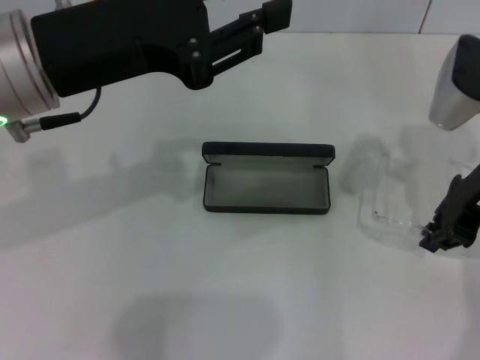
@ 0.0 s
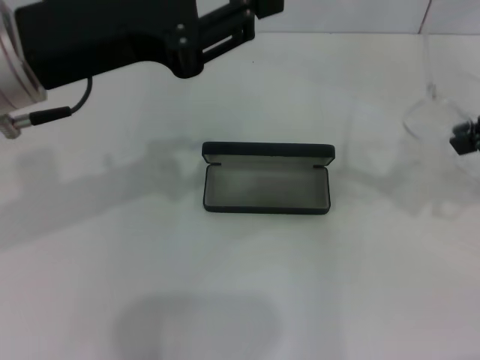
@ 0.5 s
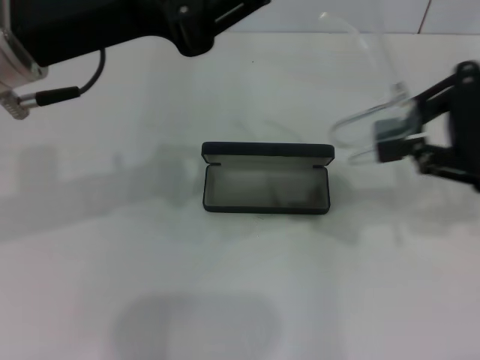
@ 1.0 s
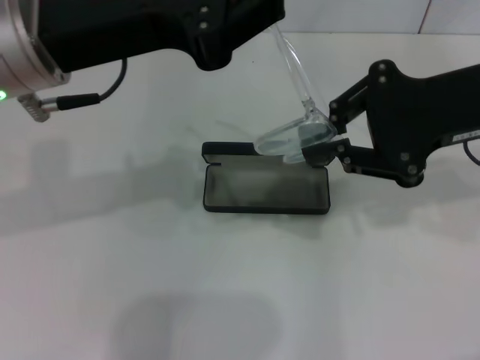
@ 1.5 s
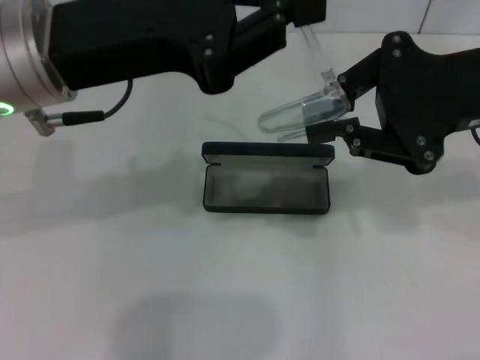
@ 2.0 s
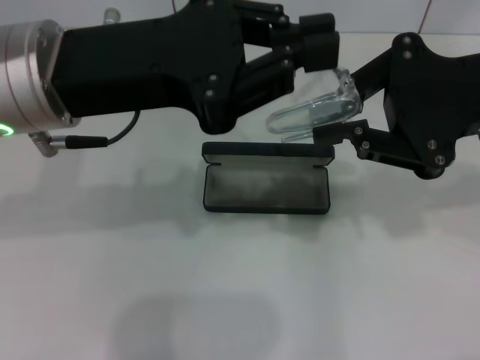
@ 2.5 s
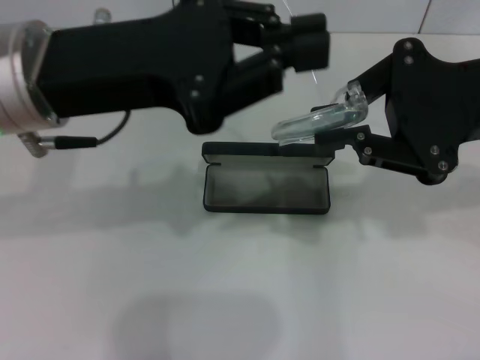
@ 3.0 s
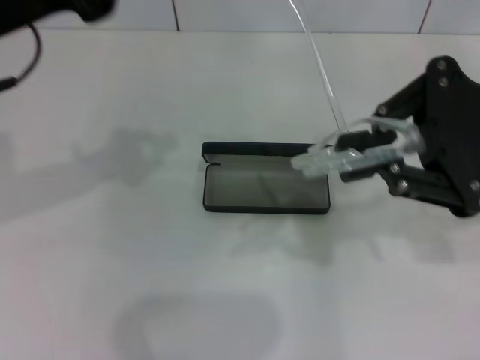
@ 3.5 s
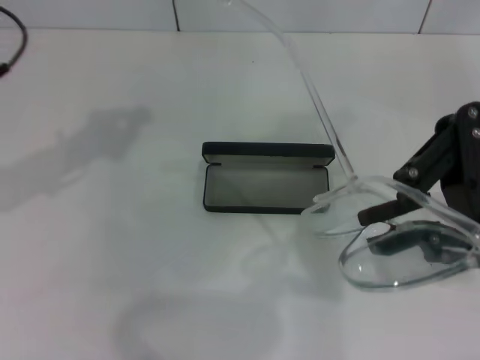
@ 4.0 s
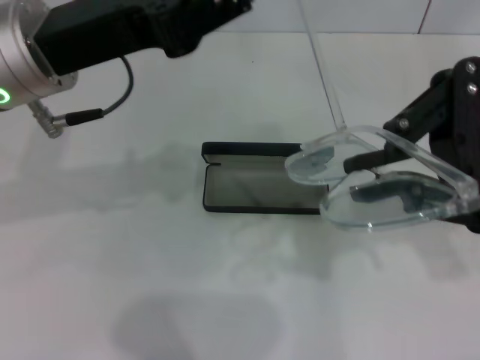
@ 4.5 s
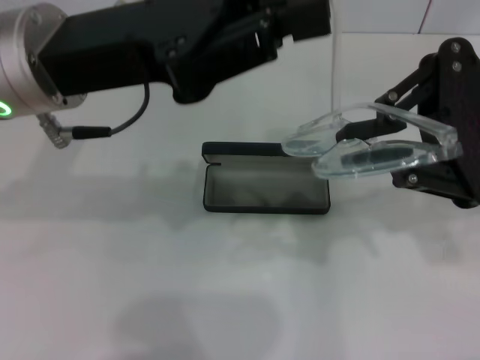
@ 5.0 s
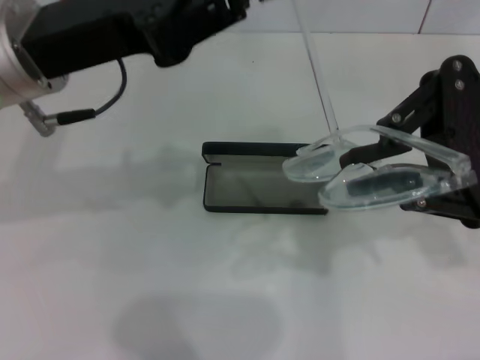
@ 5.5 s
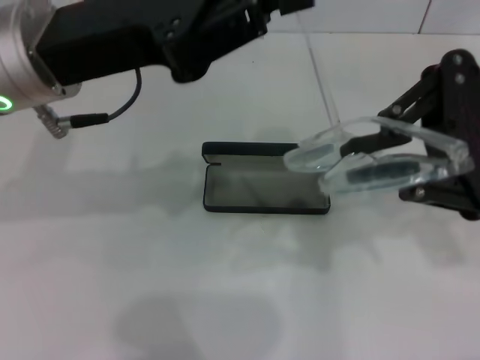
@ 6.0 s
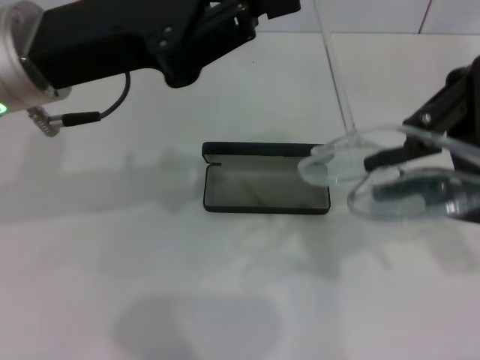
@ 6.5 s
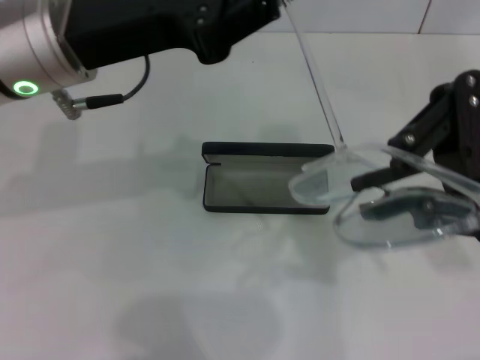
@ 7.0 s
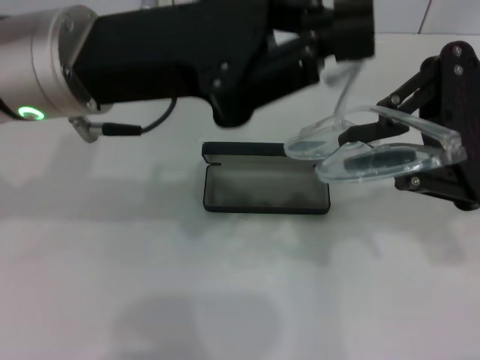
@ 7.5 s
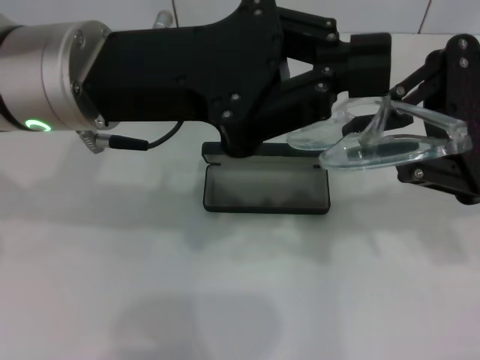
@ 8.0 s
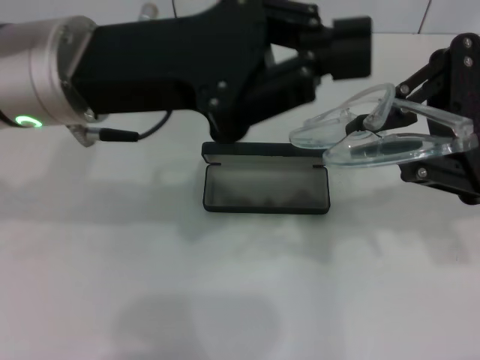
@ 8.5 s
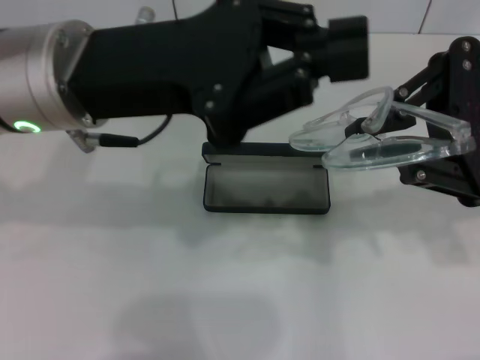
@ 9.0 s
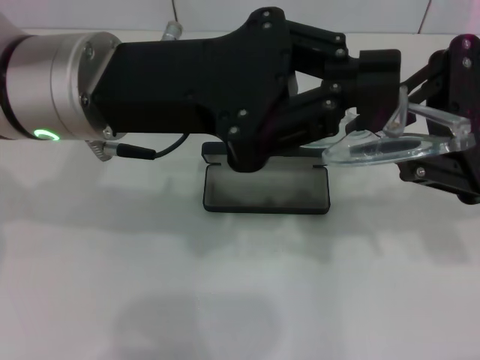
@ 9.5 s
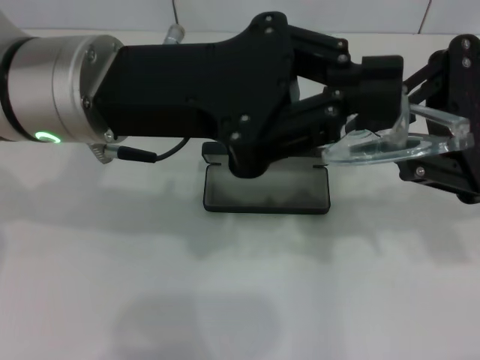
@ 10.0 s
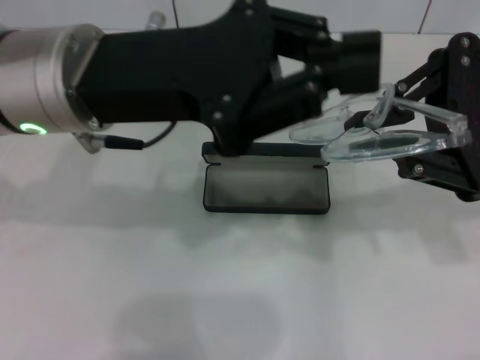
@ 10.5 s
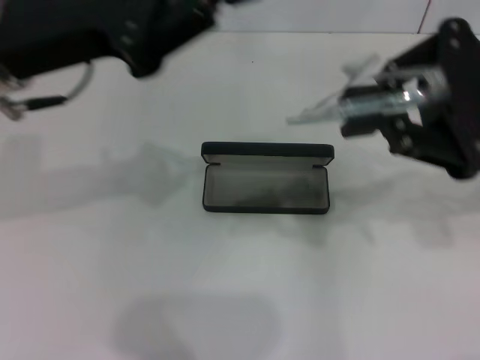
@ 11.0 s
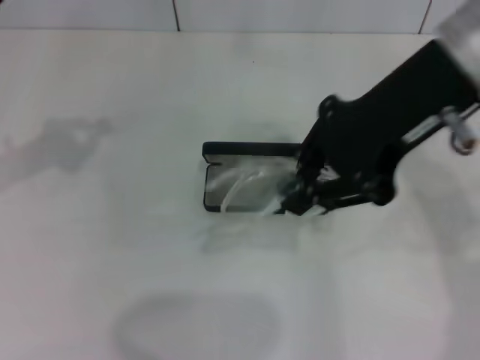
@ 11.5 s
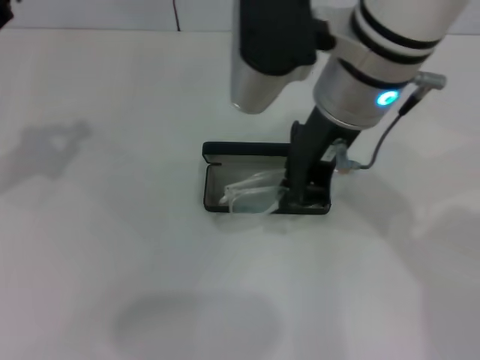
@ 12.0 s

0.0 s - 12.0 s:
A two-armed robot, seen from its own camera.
Step, 0.0 s - 8.5 s: Fold the frame with your left hand.
0.0 s - 2.0 s: The right gripper is displaced upward by about 10 cm.
2.0 s - 4.0 s: The left gripper is displaced to the left by roughly 10 cm.
4.0 s - 6.0 s: The left gripper goes about 5 cm to the right.
8.0 s - 10.0 s: The grippers make only small movements.
10.0 s - 12.0 s: Both grippers move to the left, approximately 20 cm.

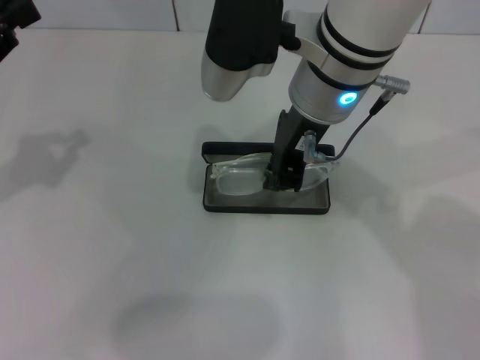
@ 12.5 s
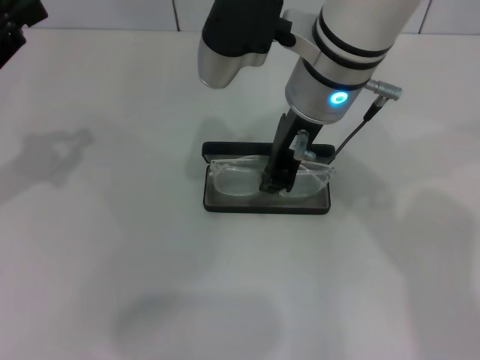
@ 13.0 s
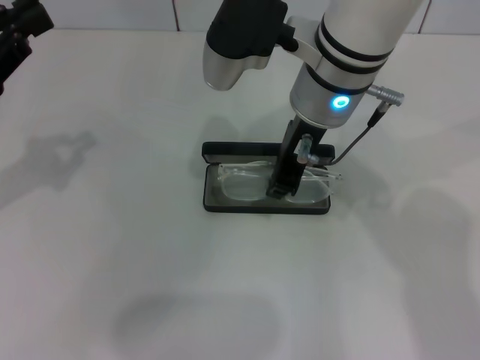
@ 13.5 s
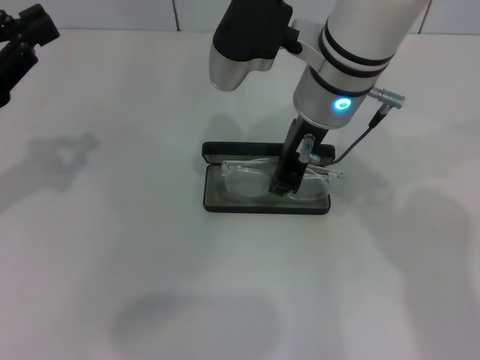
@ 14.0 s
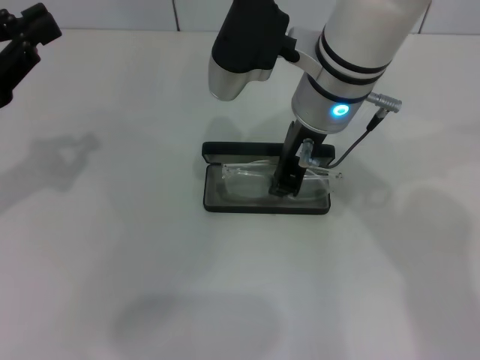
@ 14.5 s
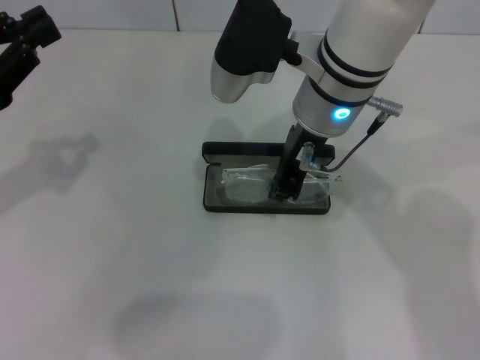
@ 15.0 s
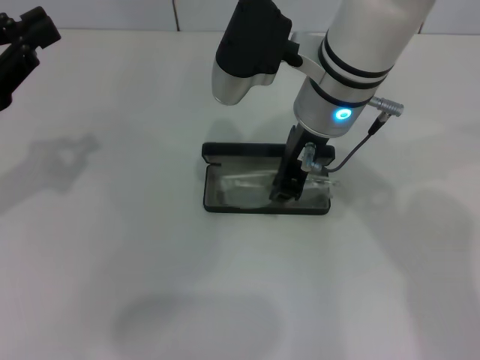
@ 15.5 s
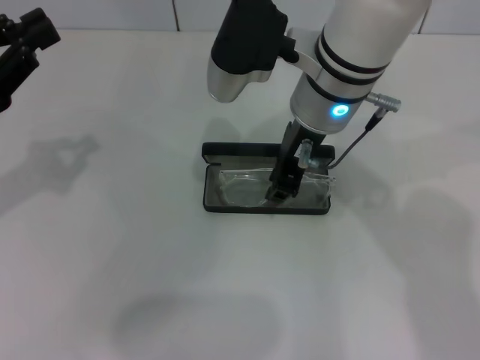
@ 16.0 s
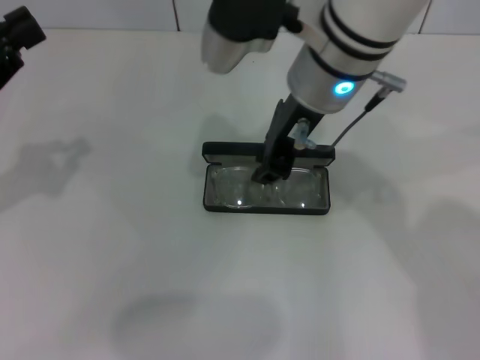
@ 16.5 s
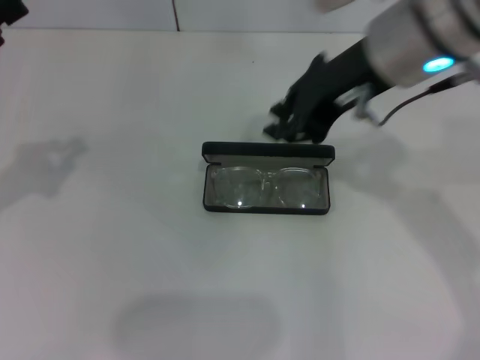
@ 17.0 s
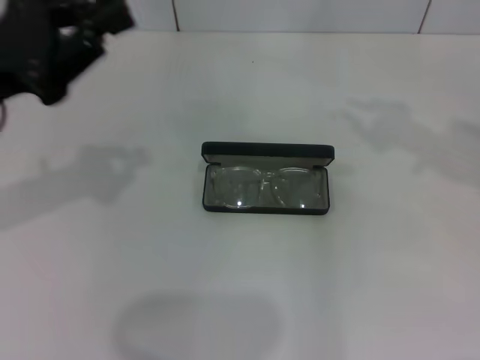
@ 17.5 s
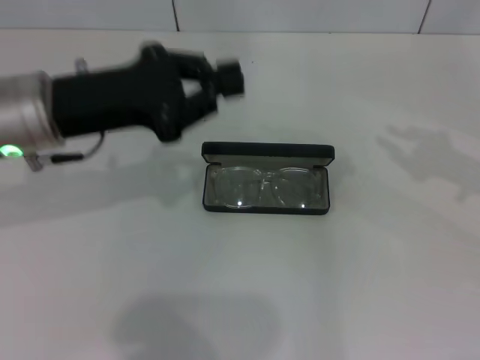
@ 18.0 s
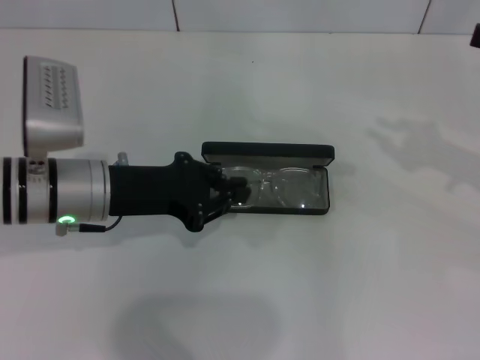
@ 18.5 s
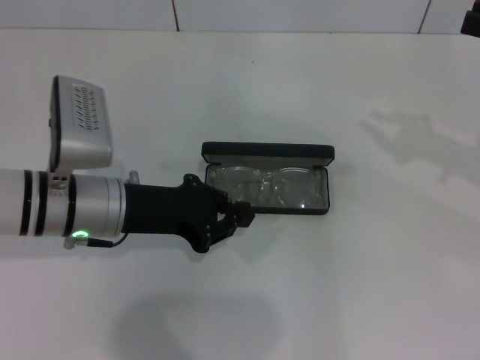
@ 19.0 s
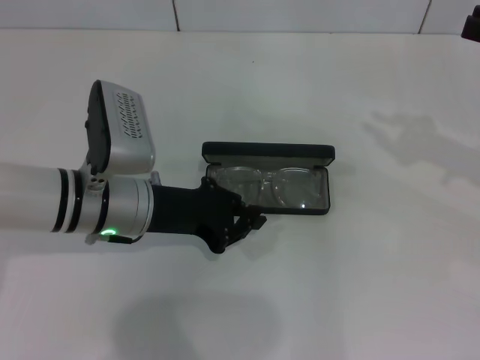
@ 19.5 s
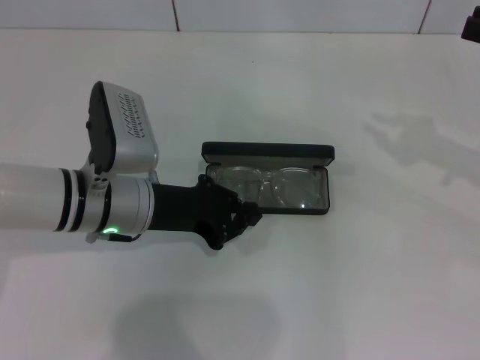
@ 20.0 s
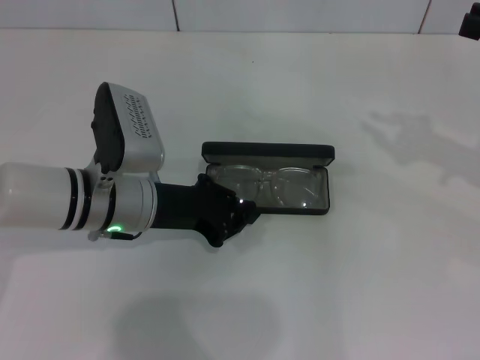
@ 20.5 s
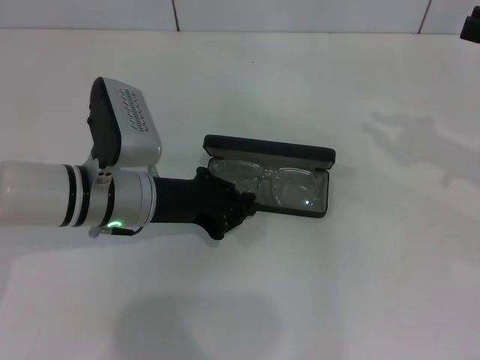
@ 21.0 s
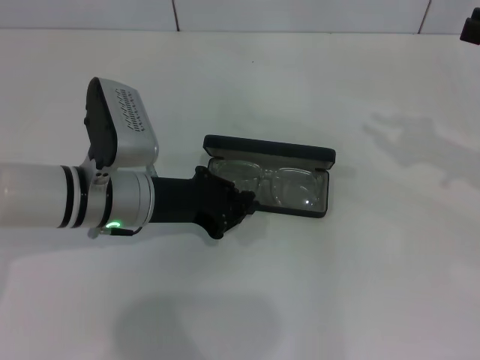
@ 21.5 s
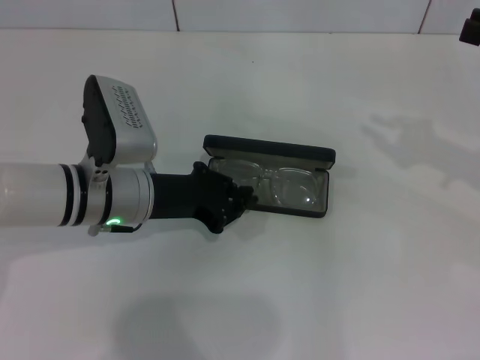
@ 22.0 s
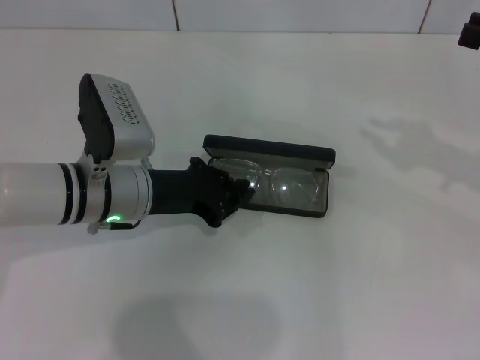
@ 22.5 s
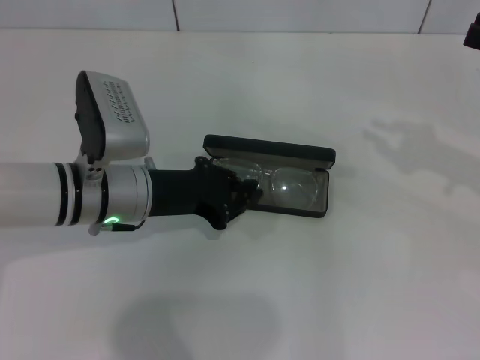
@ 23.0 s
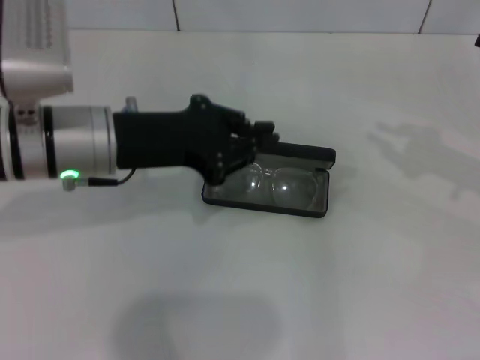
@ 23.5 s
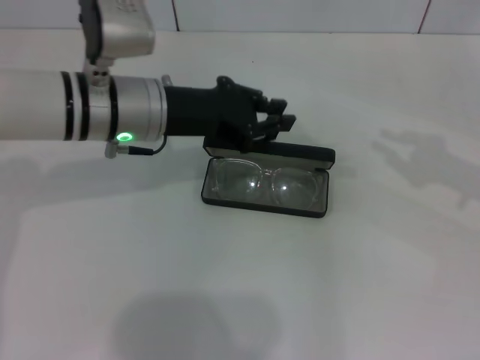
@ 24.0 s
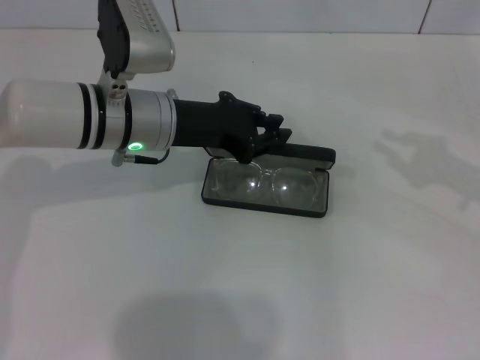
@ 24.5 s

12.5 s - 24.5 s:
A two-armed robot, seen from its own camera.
Step, 12.5 s - 16.0 s: Put the glasses into the case with your right hand.
12.5 s - 16.5 s: The grippers make only small movements.
16.5 s - 18.5 s: The left gripper is displaced to the right and downward by some 15 cm; the right gripper is displaced to the right by roughly 30 cm.
18.5 s - 22.5 s: The grippers make only small movements.
22.5 s - 24.5 s: The left gripper heads upward, covering approximately 5 cm.

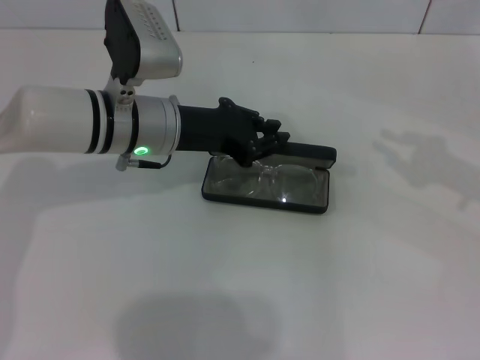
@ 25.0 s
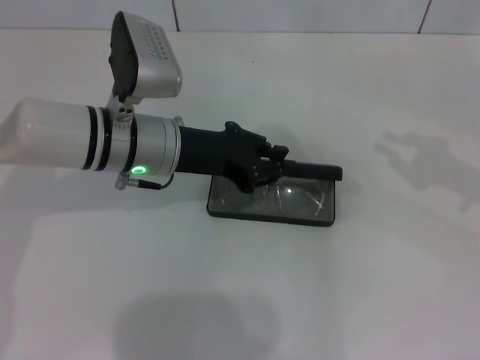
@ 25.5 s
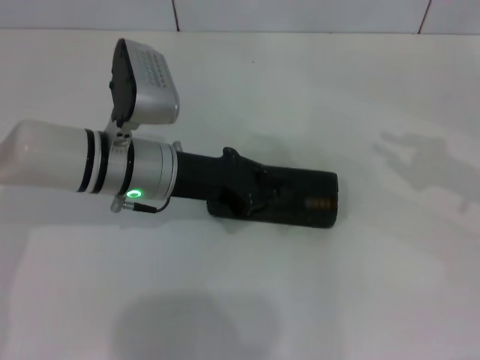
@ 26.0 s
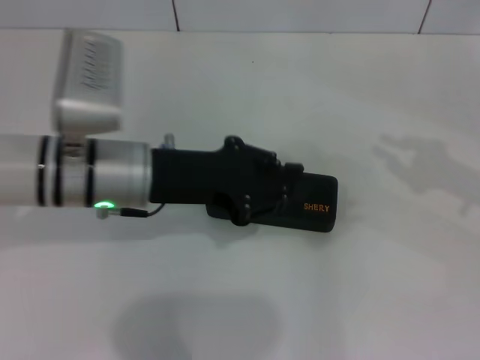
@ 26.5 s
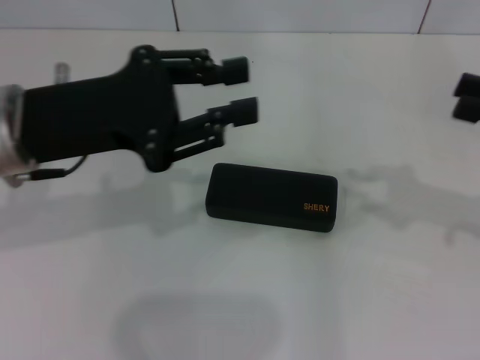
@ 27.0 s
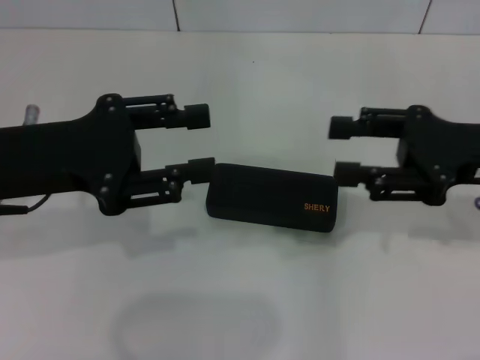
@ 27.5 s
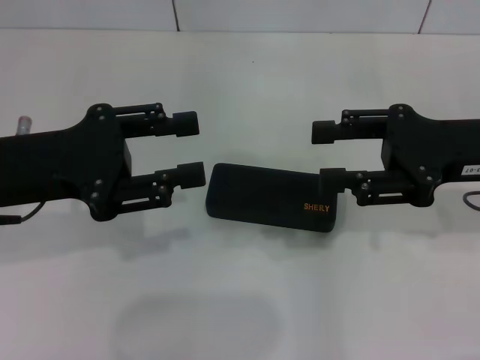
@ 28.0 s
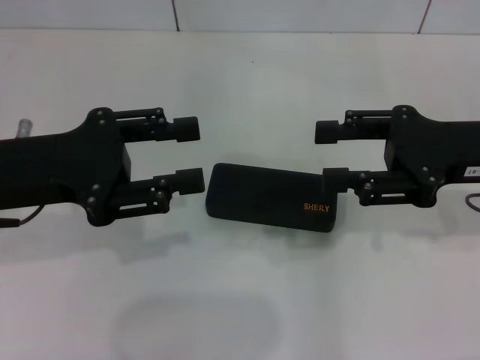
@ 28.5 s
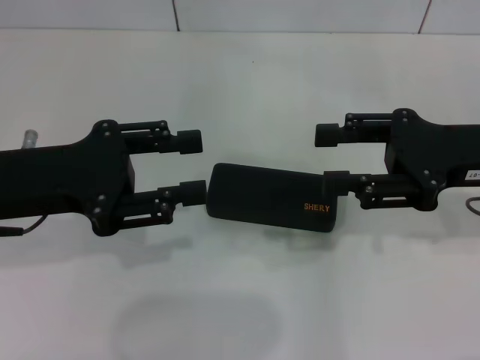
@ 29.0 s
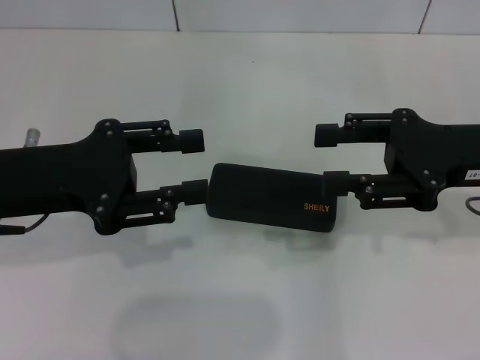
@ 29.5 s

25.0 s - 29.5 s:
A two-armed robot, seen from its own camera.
25.0 s - 27.0 s: The left gripper goes some 15 cm backward, upward and to the left.
27.0 s - 29.5 s: The left gripper ends up roughly 5 cm from where it was, and opens. Meanwhile the right gripper goes approximately 10 cm to the left, and opens its fingers.
